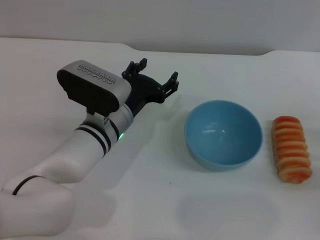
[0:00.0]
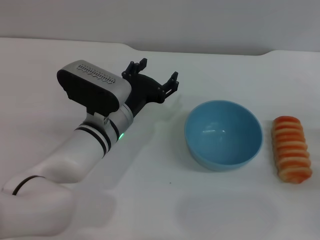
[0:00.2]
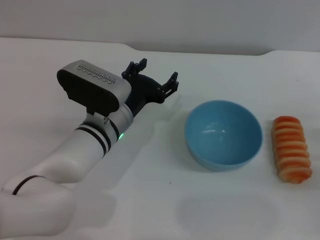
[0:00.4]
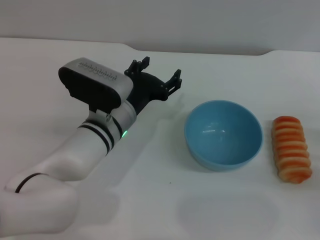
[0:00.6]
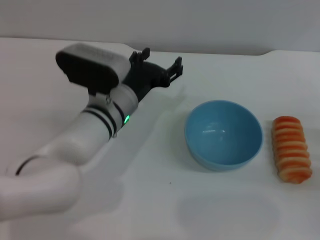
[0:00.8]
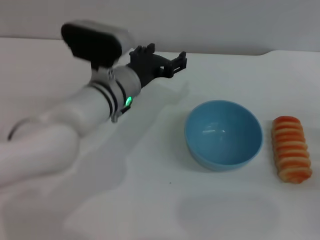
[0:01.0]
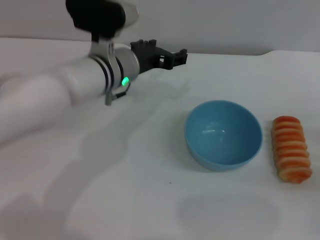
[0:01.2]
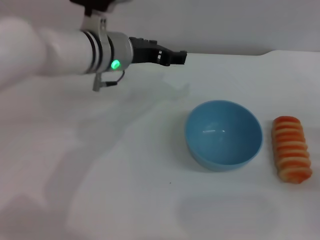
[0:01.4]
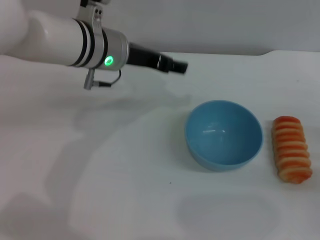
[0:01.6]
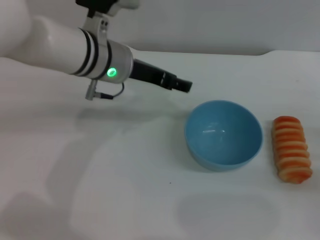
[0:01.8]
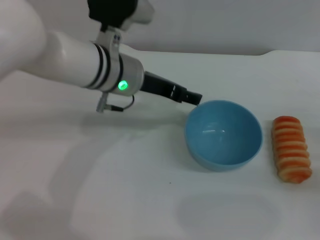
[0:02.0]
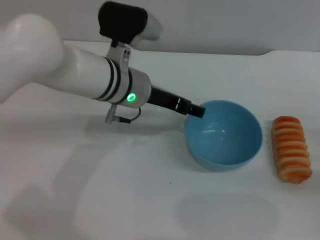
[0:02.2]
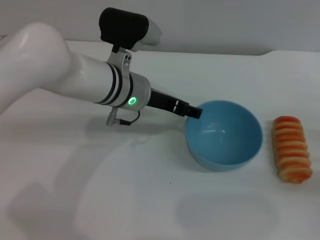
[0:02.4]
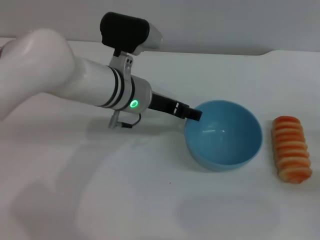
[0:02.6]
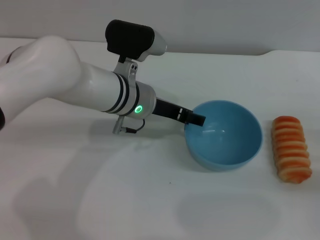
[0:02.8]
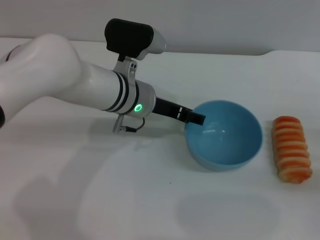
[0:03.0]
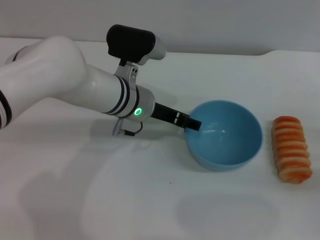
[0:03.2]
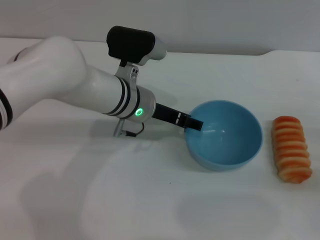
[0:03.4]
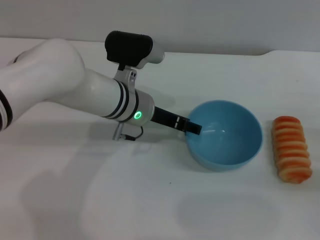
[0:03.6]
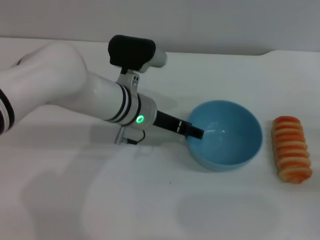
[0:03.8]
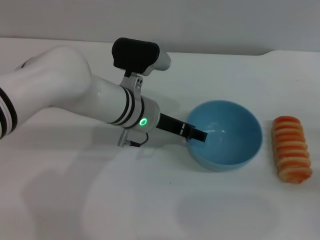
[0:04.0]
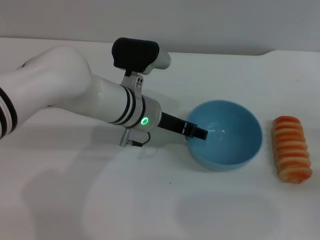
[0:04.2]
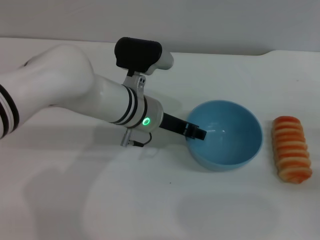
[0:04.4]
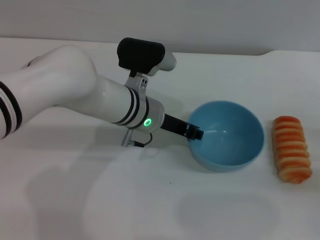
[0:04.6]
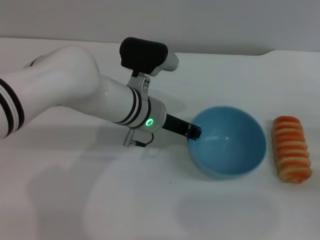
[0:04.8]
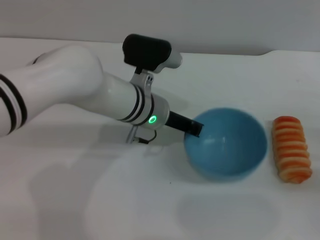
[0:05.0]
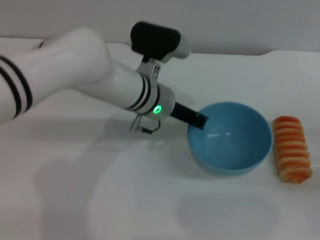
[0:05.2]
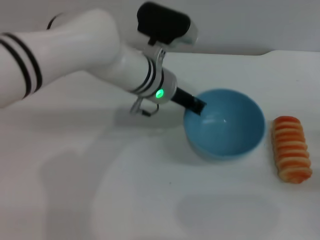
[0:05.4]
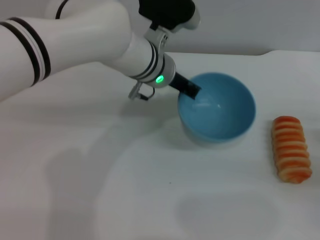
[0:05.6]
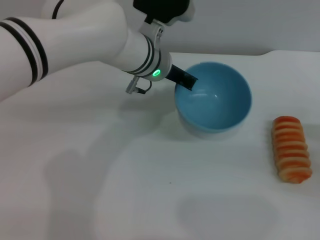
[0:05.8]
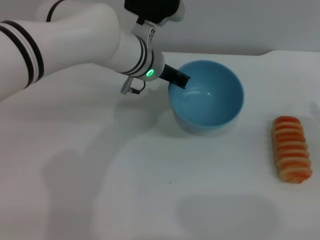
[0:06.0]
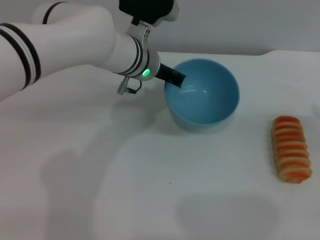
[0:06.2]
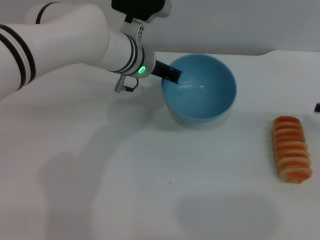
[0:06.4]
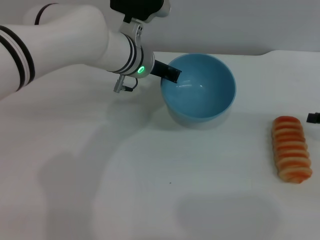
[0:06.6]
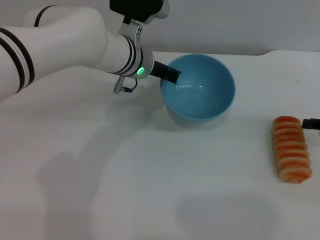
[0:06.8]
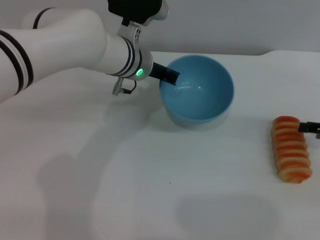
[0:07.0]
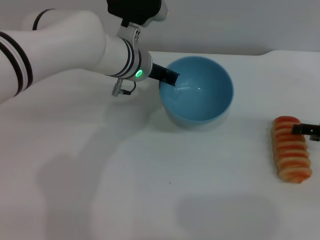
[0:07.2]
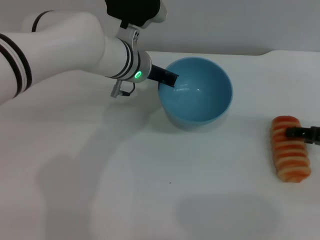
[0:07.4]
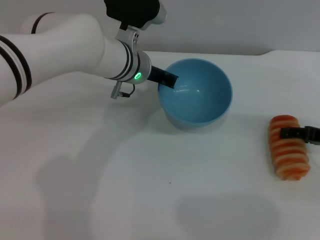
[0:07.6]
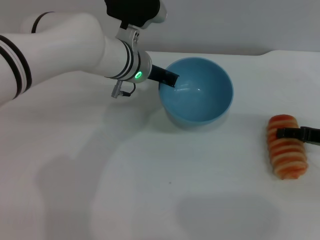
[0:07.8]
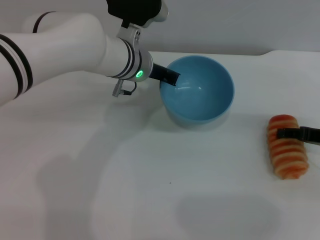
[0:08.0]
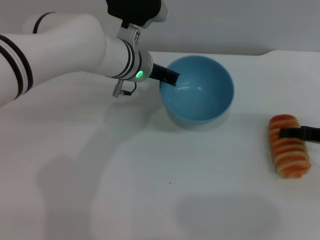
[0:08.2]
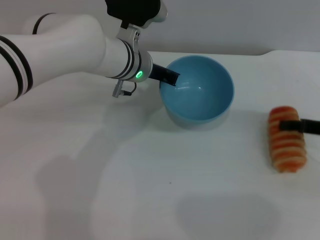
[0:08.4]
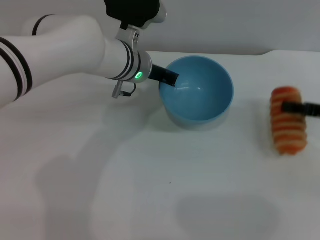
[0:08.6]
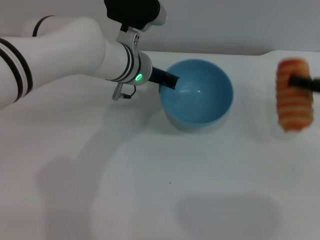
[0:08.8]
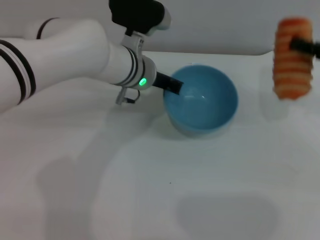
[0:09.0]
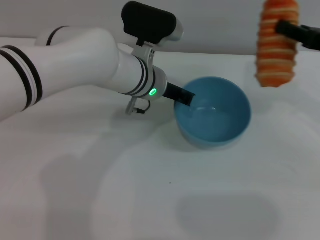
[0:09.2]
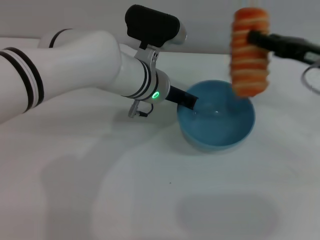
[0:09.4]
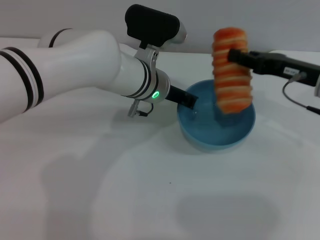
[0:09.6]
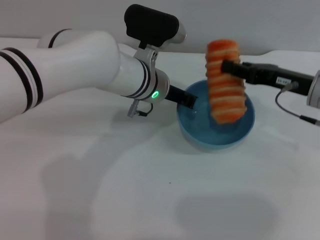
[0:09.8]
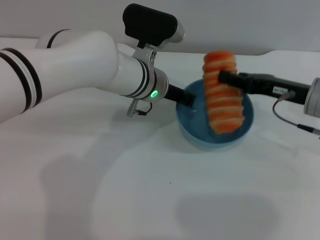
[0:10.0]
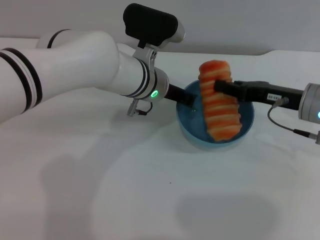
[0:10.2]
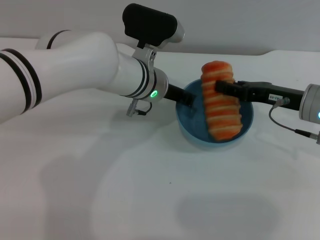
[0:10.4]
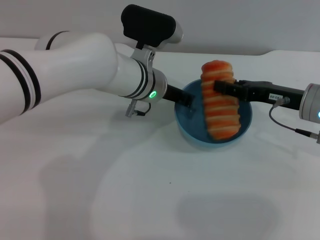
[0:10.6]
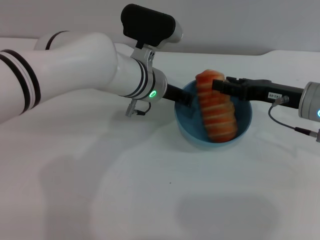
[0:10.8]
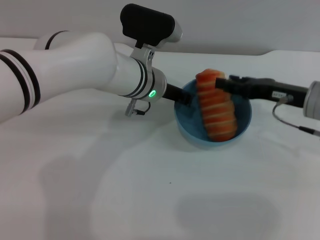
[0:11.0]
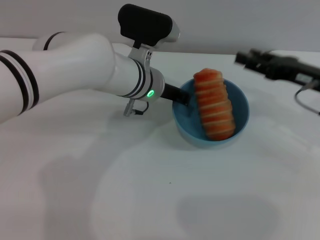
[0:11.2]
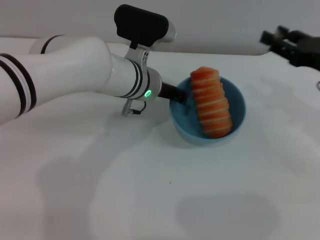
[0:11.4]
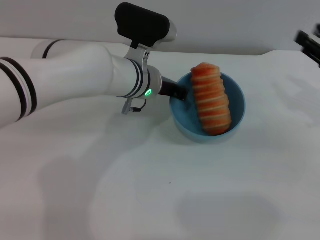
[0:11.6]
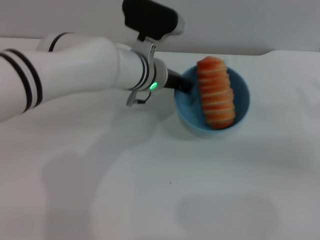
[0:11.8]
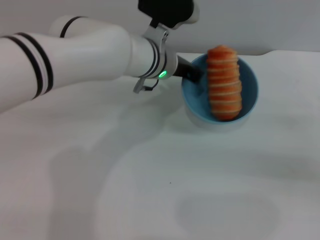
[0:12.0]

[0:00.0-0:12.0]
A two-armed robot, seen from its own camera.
Task of the whole recording: put the bread into the blue bowl and pour it out repeatedly.
Step, 0:00.0 to 0:05.8: Pick up the bowl with the left gripper.
Step, 0:06.2 to 0:08.8: Pick up the bread with the right gripper.
Step, 0:09.0 to 0:11.2: Place the bread into the bowl.
0:00.0 to 0:01.6: The left gripper is displaced upward and forward by approximately 15 cm.
0:01.6 to 0:03.0: The left gripper goes roughly 5 cm downward.
0:03.0 to 0:04.4: There are only small adjustments of the grippers.
0:04.4 to 0:06.0: The grippers both shift forward by about 5 cm. The left gripper closes.
0:07.6 to 0:09.0: The right gripper travels upward by approximately 10 cm, and closes up.
0:09.0 to 0:10.4: The right gripper moves to the left and downward, about 10 cm.
0:10.4 to 0:12.0: The right gripper heads to the right and backward, covering some 15 cm, and opens.

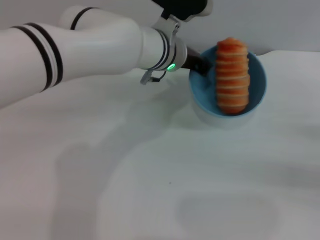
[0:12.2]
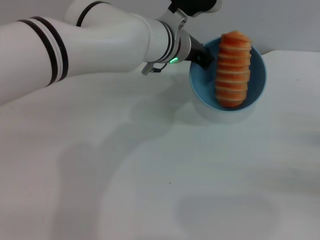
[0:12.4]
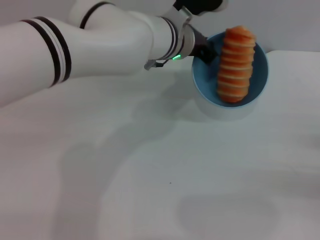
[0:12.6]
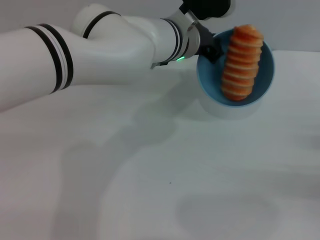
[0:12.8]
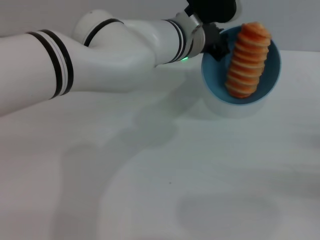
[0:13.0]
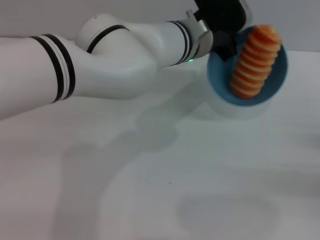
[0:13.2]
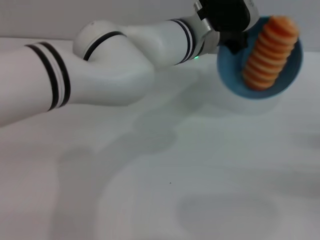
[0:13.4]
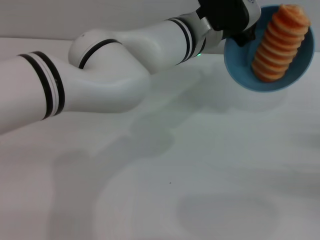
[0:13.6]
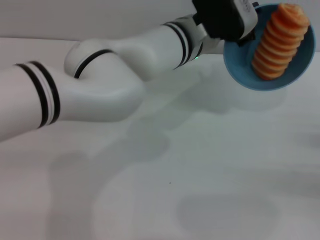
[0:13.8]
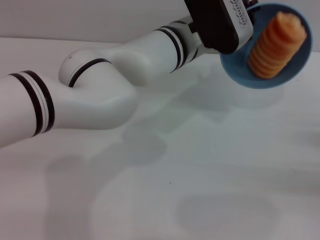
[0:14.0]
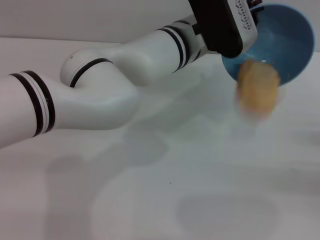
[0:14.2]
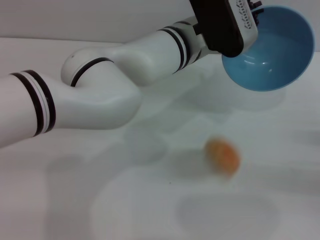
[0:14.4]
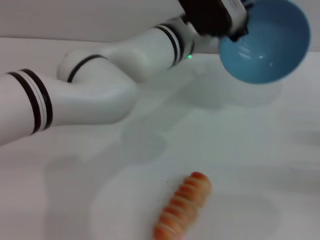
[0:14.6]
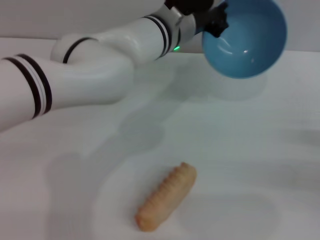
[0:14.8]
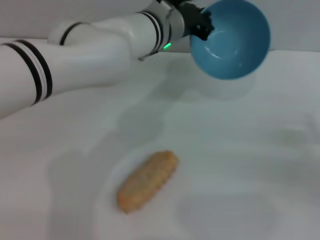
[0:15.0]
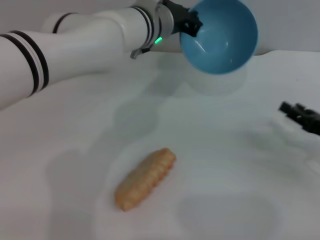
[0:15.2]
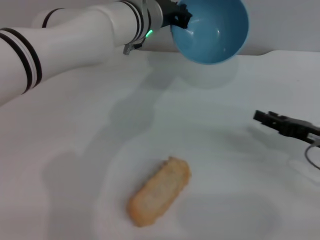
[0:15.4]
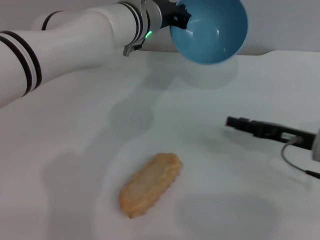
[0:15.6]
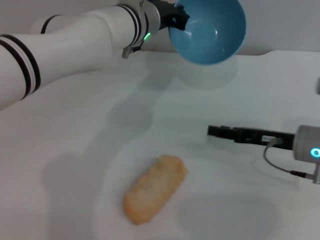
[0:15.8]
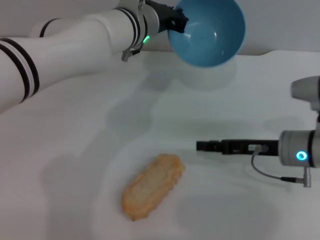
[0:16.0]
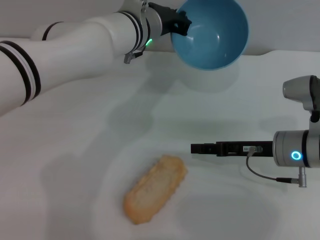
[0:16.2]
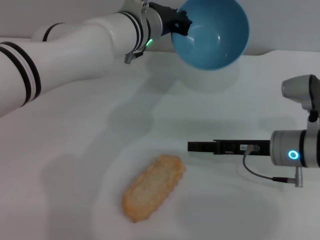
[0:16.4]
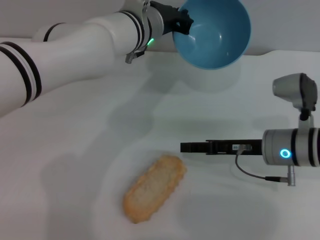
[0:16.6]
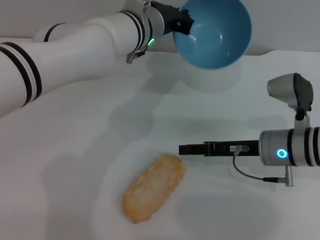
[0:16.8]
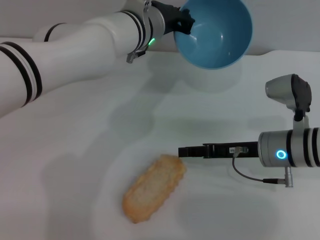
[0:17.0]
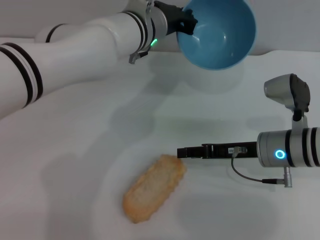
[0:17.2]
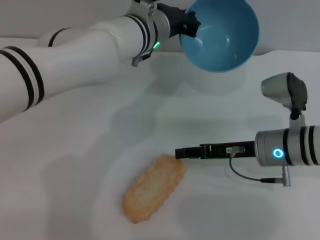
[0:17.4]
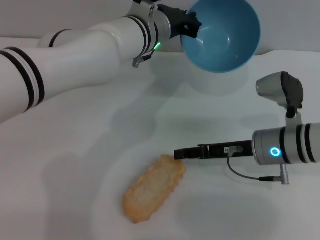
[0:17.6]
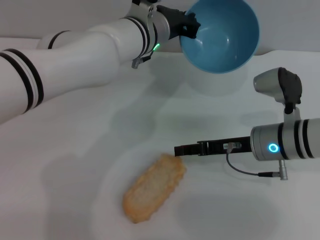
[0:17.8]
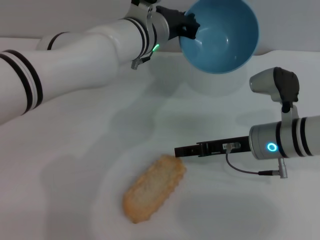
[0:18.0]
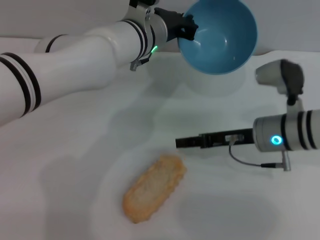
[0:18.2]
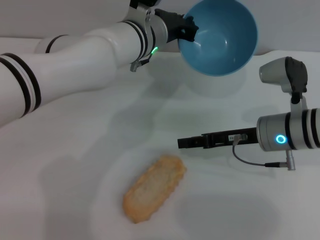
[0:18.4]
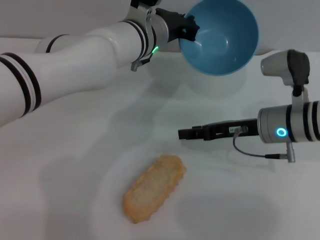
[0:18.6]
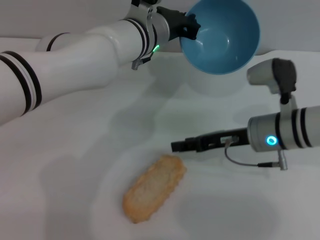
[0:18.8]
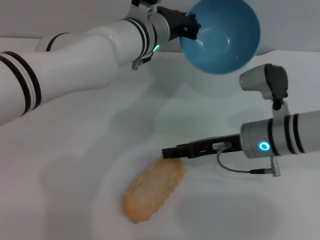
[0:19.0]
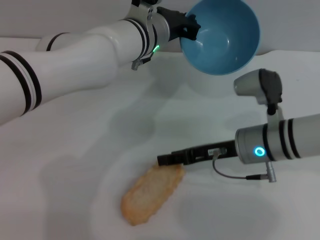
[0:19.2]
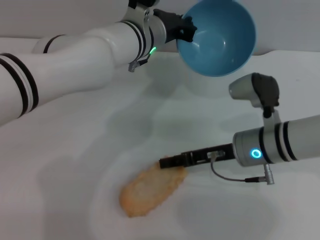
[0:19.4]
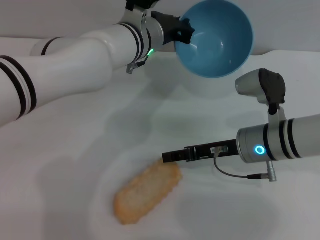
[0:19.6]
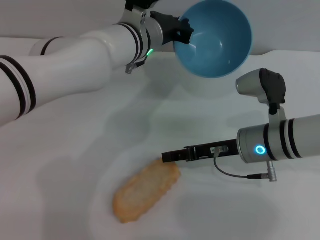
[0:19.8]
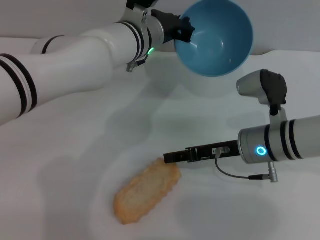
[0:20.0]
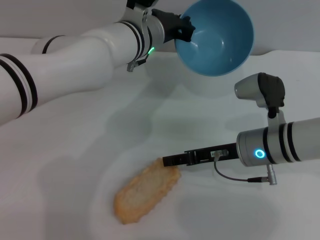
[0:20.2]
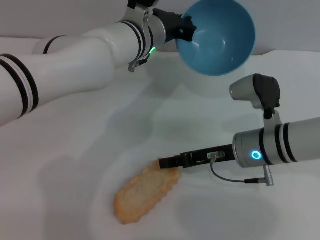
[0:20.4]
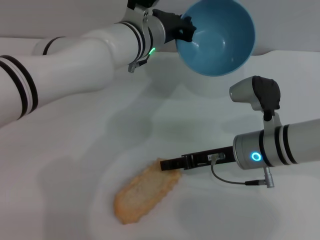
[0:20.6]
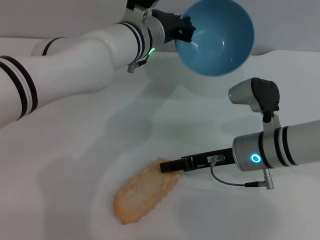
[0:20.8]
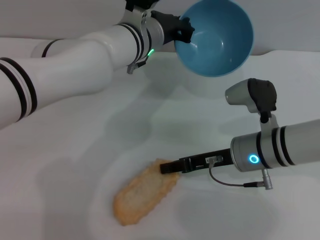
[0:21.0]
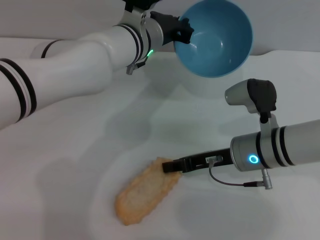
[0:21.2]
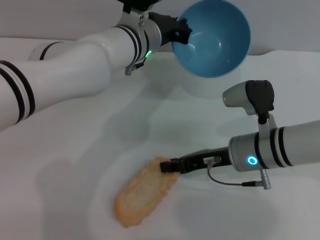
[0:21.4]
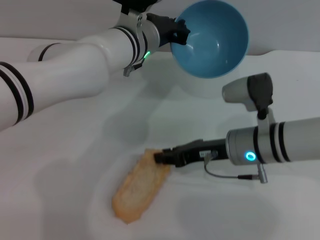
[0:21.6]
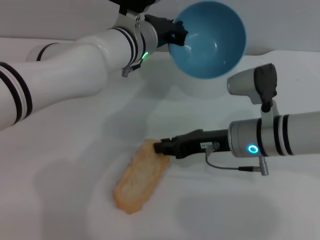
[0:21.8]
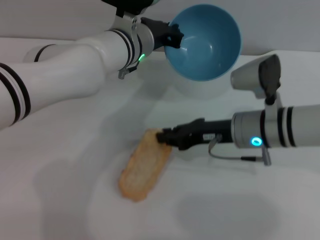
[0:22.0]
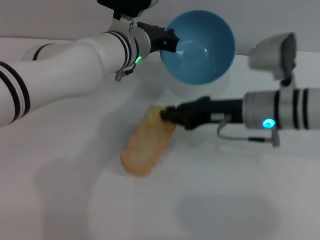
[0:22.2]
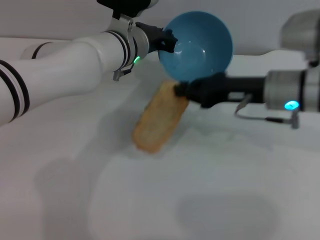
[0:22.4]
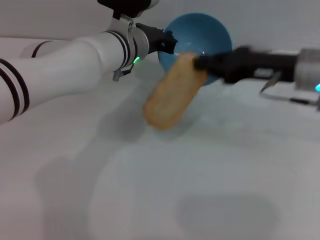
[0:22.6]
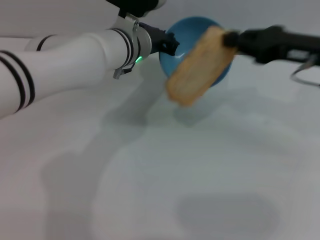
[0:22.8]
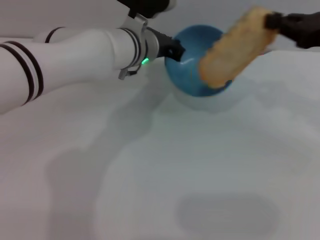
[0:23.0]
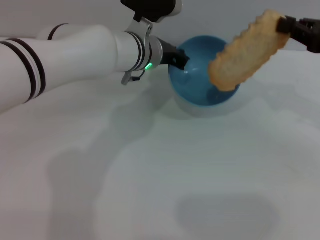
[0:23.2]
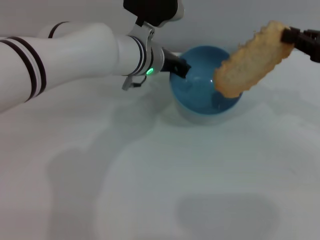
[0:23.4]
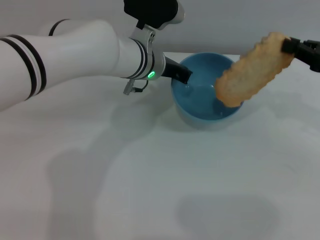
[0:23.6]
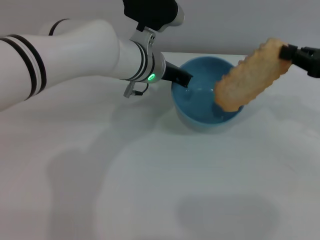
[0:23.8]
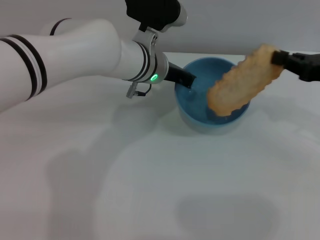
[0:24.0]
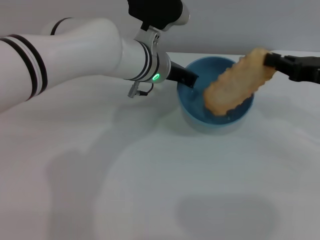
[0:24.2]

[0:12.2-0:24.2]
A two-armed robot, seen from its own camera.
Task of the whole recording: put the bread into the blue bowl and pour it out repeatedly.
Step, 0:12.2 to 0:14.6: Pour the bread out of the bowl.
Step, 0:14.8 to 0:22.4: Pick up the bread with the right gripper.
0:13.8 to 0:15.2: Both grippers move to the left, some 5 cm.
0:15.2 to 0:16.6: The right gripper moves to the left, roughly 15 cm.
0:16.6 to 0:21.2: The grippers make only small movements.
0:21.2 to 0:22.6: The right gripper heads upward and to the right, covering some 10 cm, and closes.
0:22.6 to 0:24.2: The right gripper is displaced to the right by roughly 10 cm.
